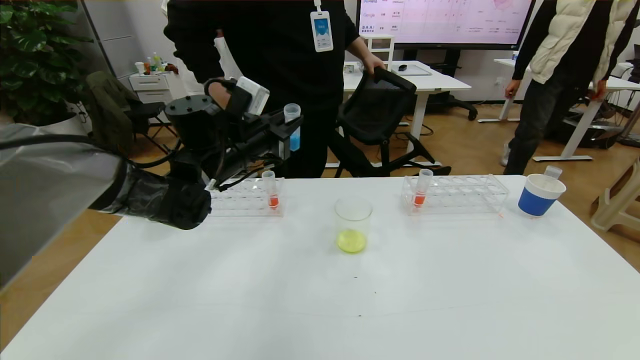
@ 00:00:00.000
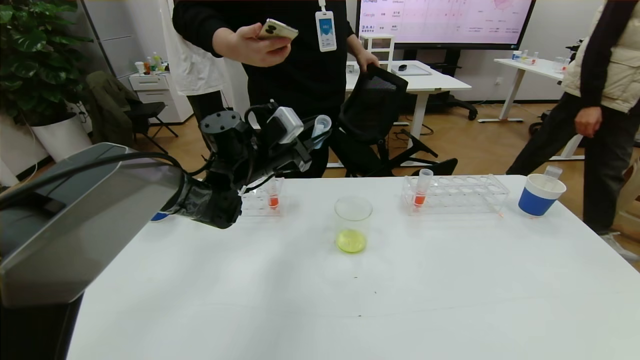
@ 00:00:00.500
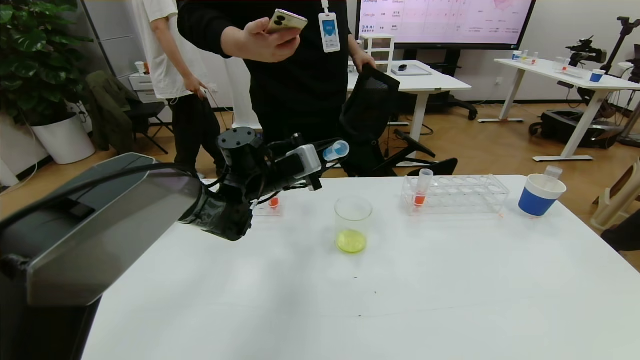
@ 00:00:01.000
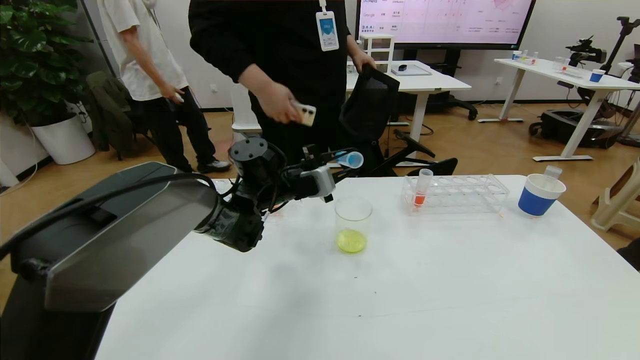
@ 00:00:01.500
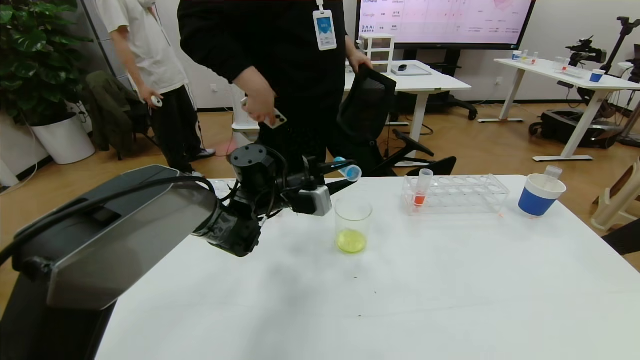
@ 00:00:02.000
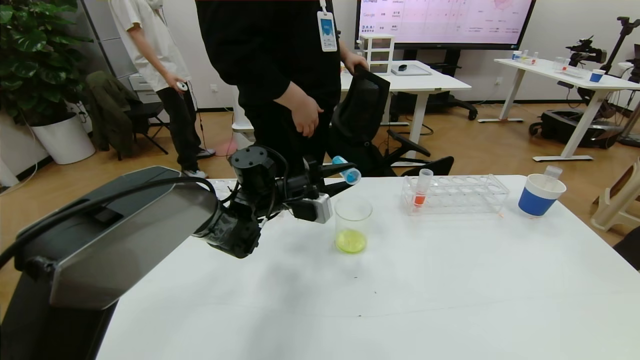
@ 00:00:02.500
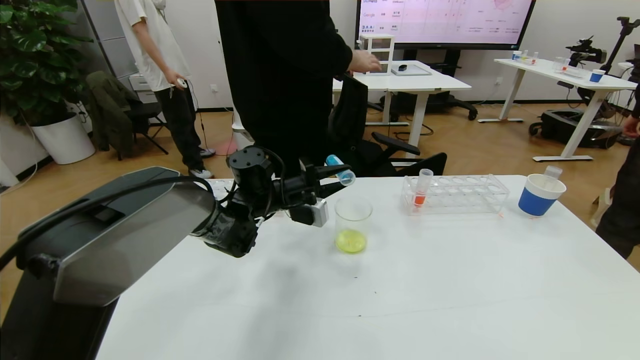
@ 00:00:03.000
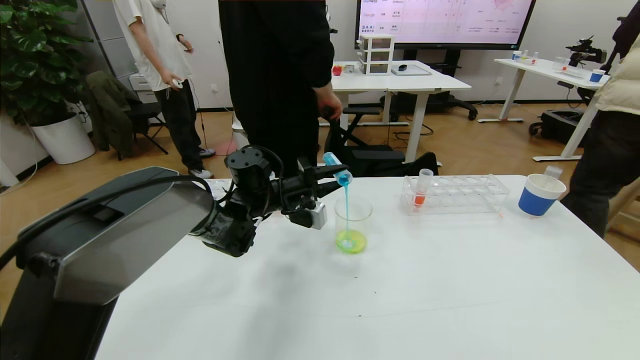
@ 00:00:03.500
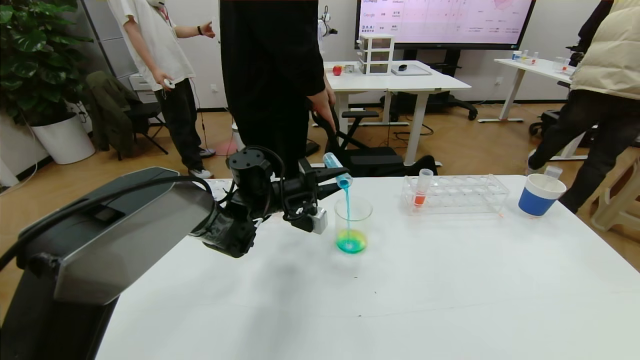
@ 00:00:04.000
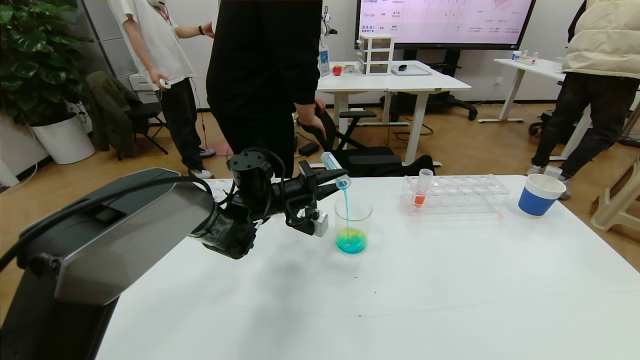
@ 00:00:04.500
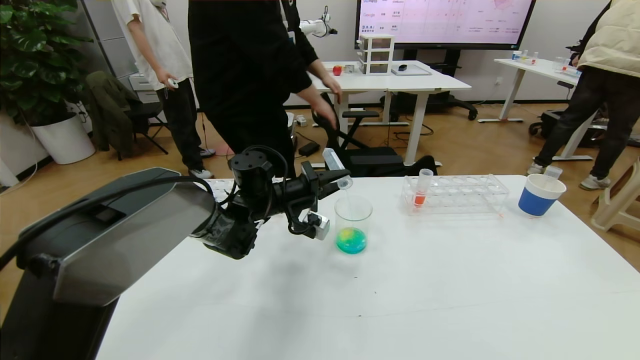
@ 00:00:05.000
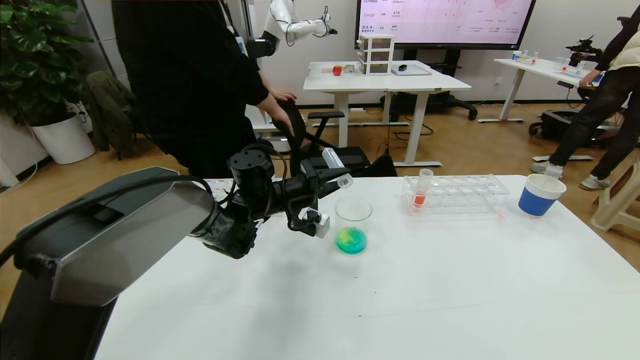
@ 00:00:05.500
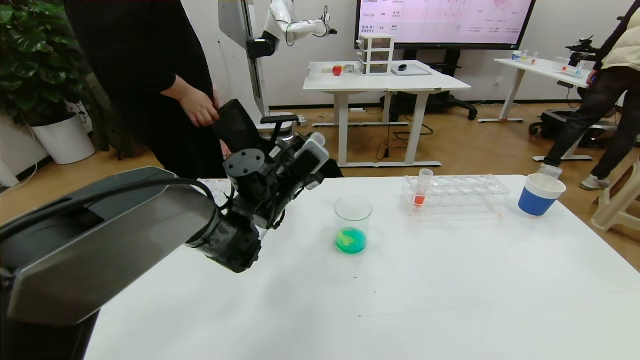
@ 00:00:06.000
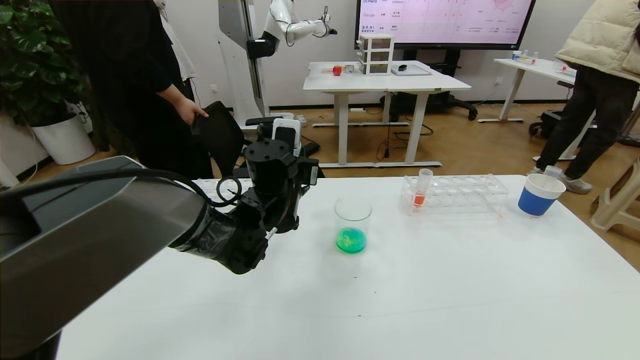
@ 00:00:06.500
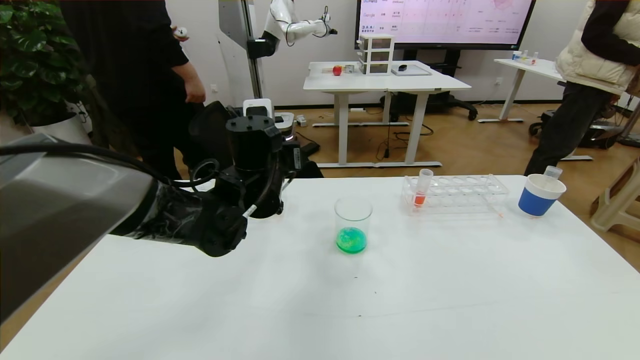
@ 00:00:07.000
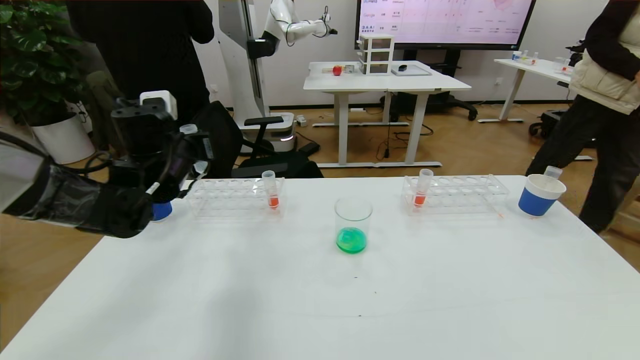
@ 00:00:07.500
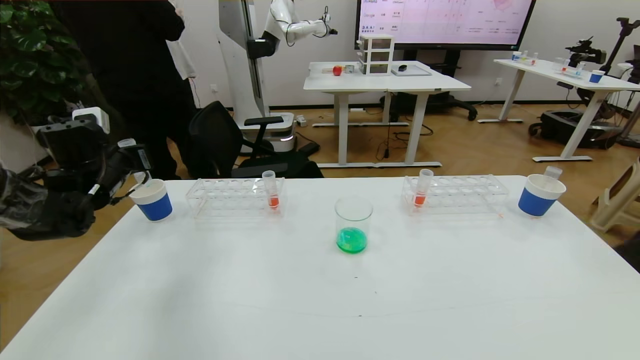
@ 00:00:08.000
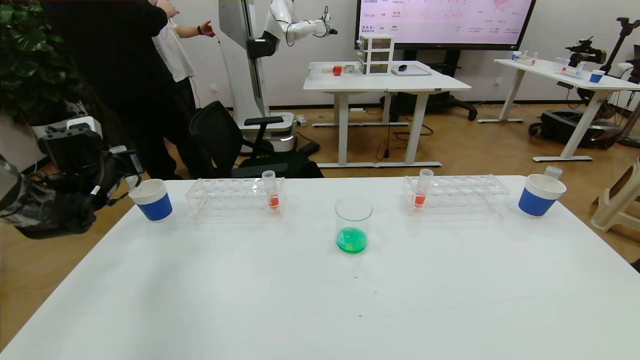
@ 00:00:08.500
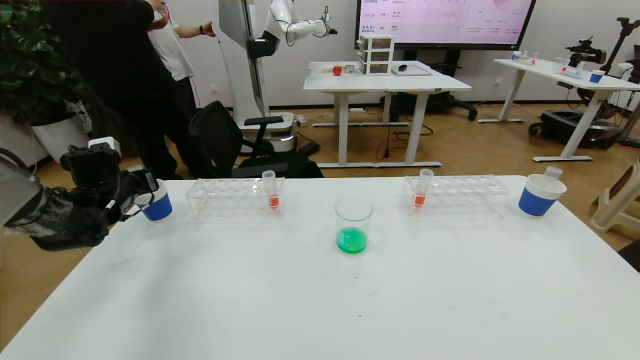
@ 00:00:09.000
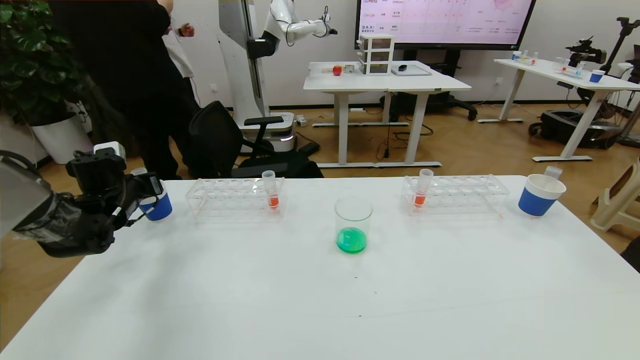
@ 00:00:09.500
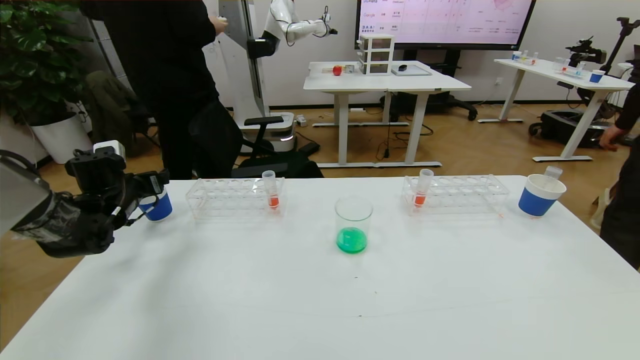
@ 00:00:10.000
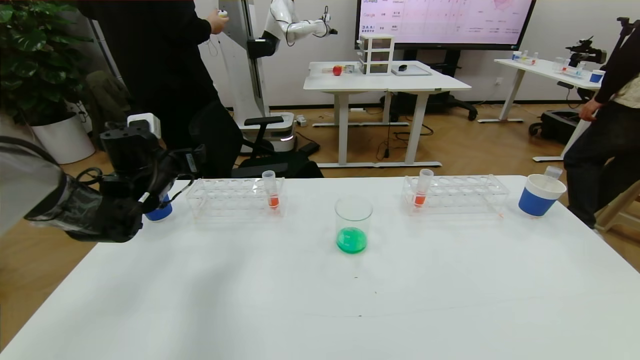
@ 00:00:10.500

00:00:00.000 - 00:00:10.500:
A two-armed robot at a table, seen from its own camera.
Task of the whole recording: pick up the test tube with yellow pigment and the test tube with blue pigment by grippers and pour them into the beaker.
00:00:00.000 - 00:00:02.000: The left gripper heads downward and to the right, covering some 10 cm.
00:00:04.000 - 00:00:06.500: The left gripper shifts some 5 cm backward.
00:00:06.500 - 00:00:08.500: The left gripper heads to the left, covering approximately 35 cm.
00:00:08.500 - 00:00:10.500: The left gripper travels to the right by roughly 10 cm, and opens its fingers.

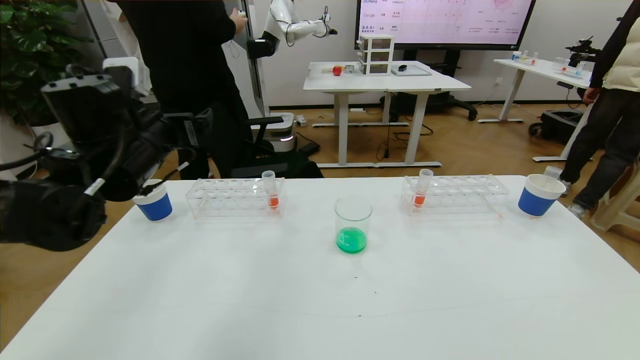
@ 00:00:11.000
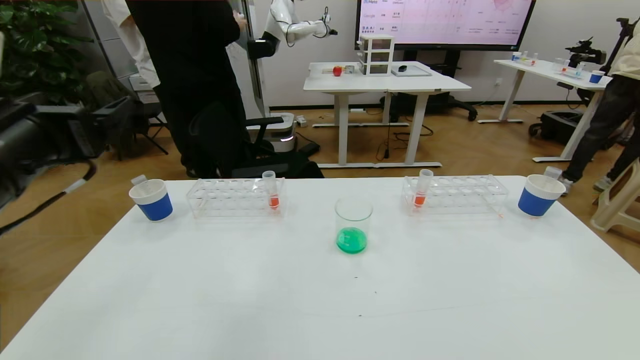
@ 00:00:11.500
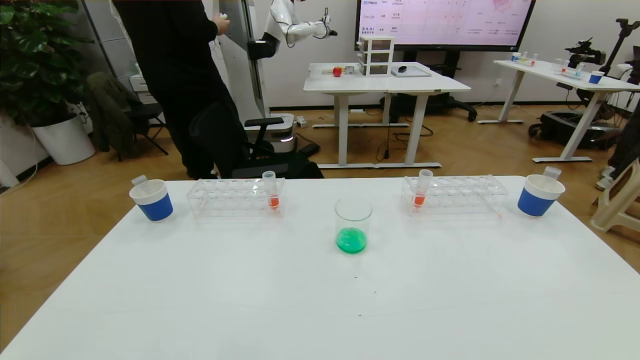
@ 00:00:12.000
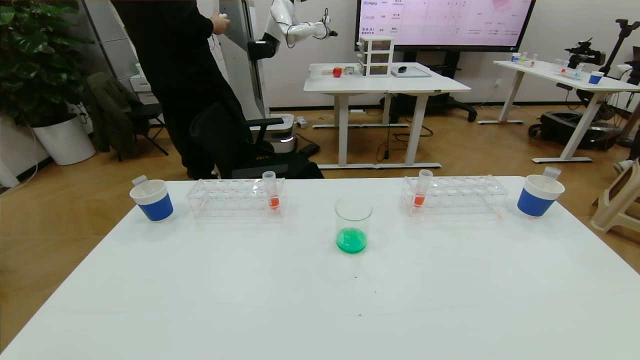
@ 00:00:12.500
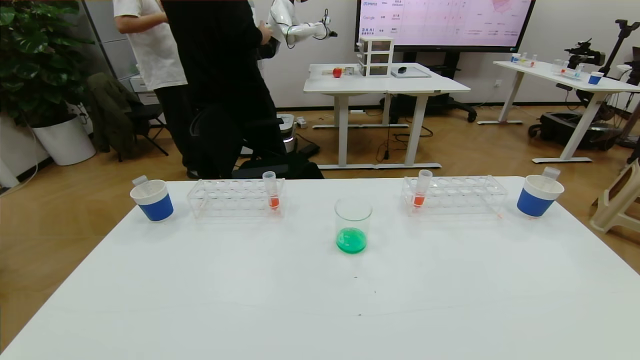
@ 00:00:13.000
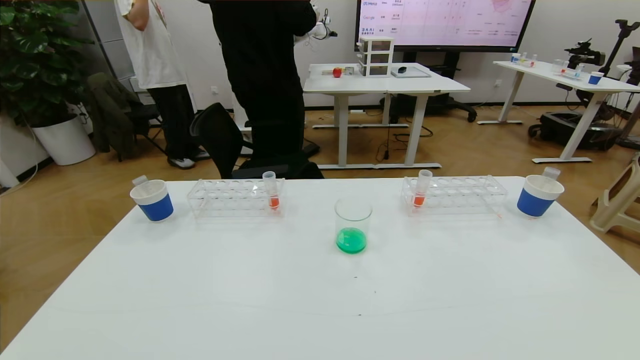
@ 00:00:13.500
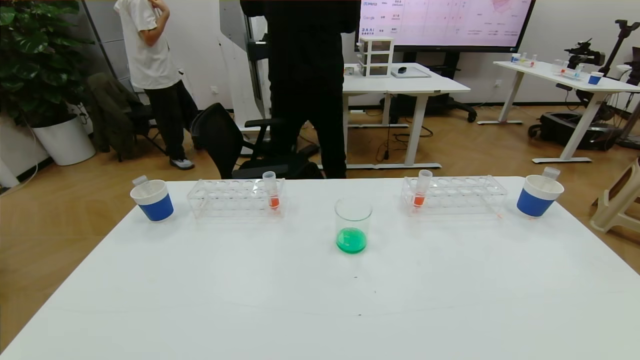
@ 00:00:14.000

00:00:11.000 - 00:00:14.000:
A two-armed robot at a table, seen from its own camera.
Task of the whole recording: pick up the test tube with yellow pigment and the test tube with blue pigment by grippers and pour them into the beaker.
00:00:11.000 - 00:00:12.500: The left gripper moves backward, roughly 35 cm.
00:00:12.500 - 00:00:14.000: The left gripper travels downward by about 20 cm.
